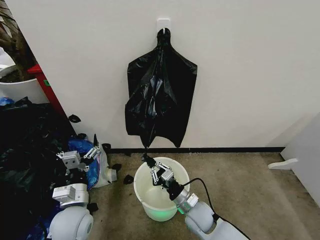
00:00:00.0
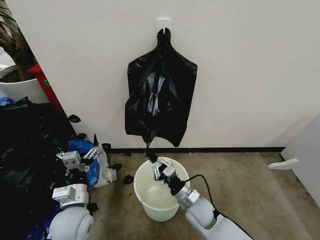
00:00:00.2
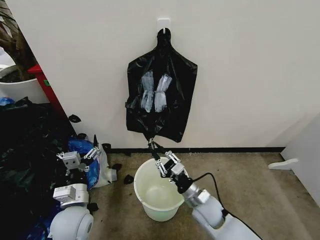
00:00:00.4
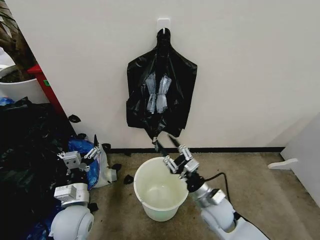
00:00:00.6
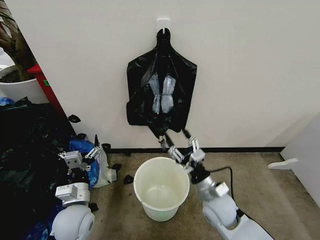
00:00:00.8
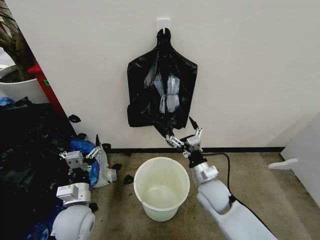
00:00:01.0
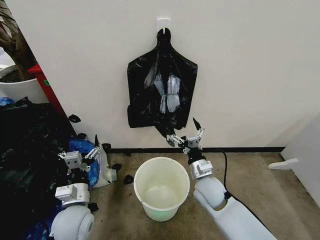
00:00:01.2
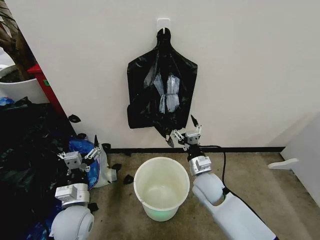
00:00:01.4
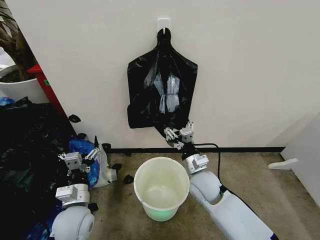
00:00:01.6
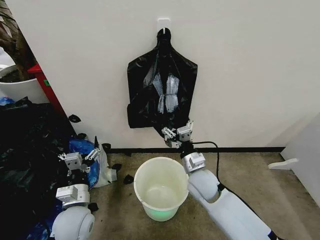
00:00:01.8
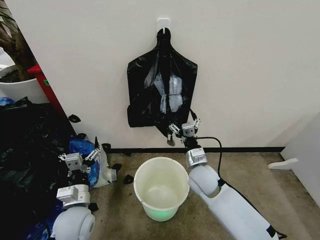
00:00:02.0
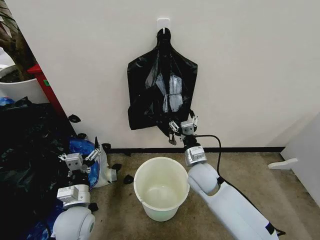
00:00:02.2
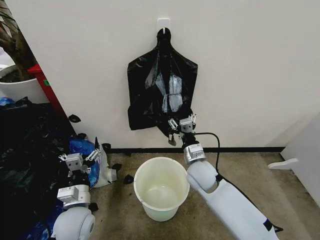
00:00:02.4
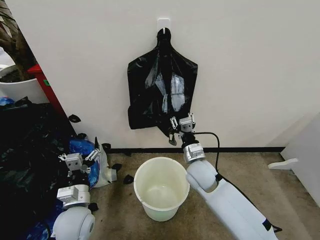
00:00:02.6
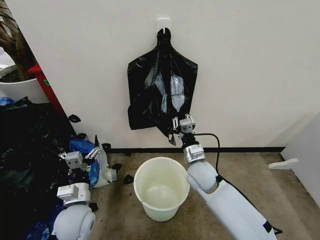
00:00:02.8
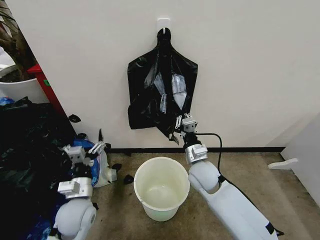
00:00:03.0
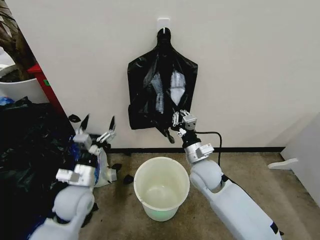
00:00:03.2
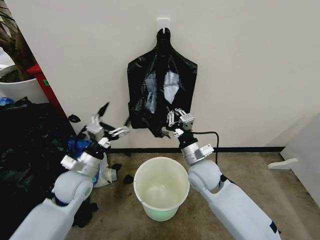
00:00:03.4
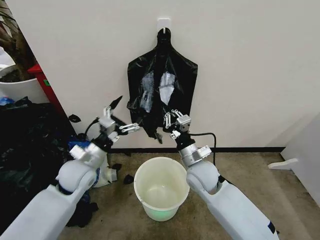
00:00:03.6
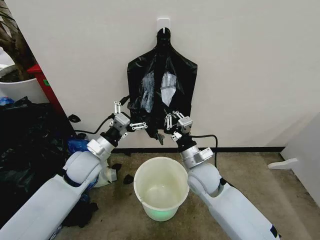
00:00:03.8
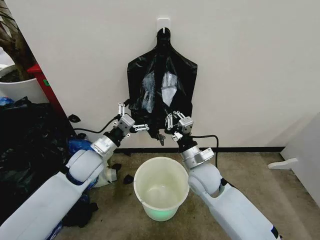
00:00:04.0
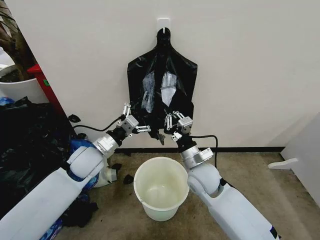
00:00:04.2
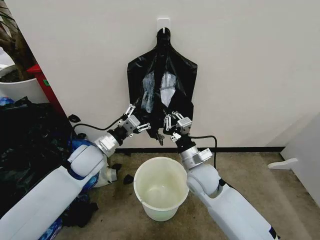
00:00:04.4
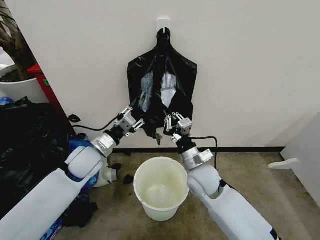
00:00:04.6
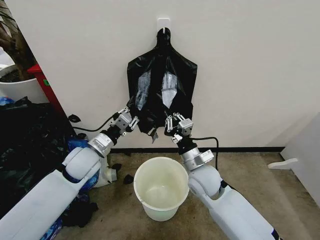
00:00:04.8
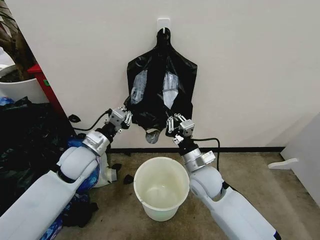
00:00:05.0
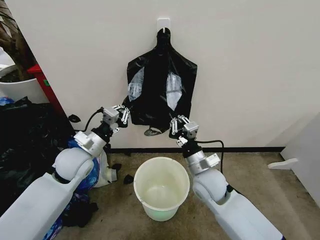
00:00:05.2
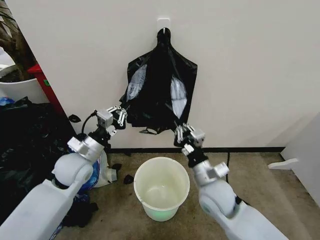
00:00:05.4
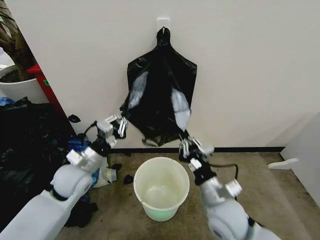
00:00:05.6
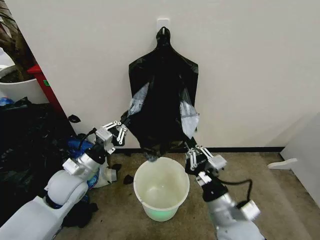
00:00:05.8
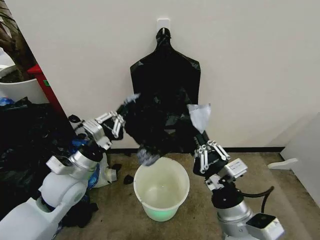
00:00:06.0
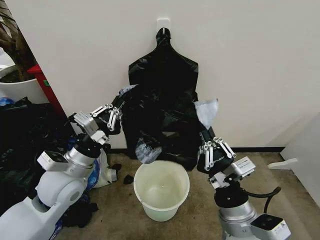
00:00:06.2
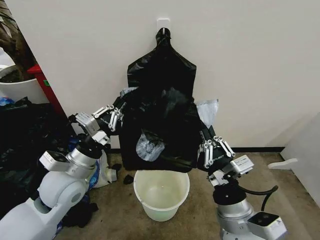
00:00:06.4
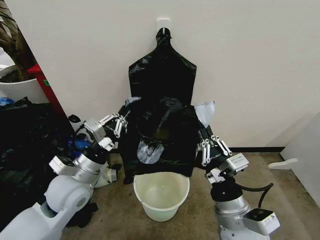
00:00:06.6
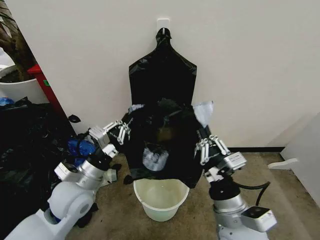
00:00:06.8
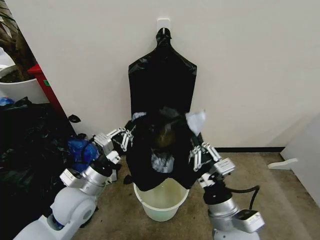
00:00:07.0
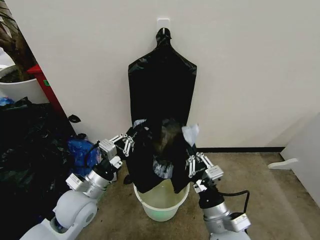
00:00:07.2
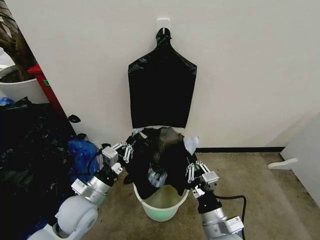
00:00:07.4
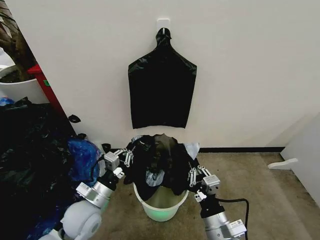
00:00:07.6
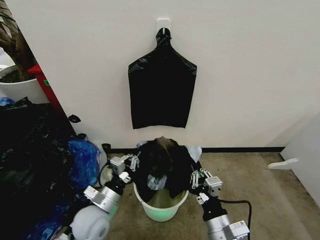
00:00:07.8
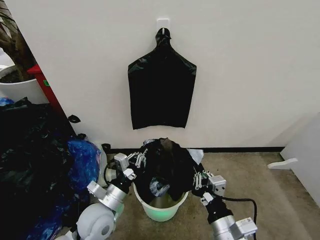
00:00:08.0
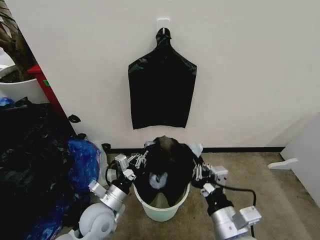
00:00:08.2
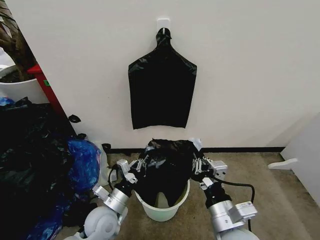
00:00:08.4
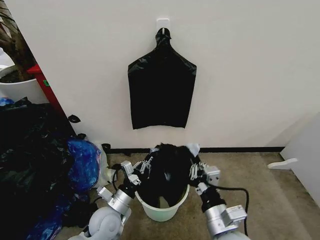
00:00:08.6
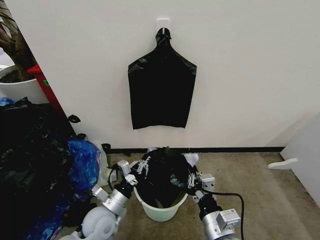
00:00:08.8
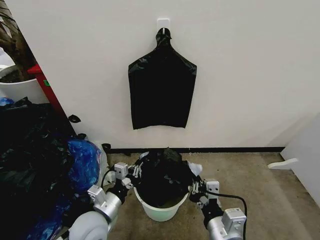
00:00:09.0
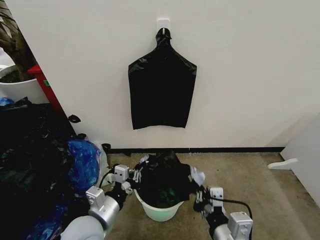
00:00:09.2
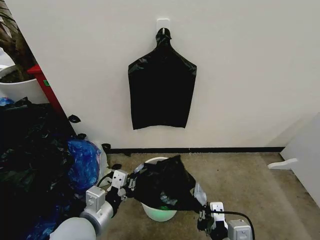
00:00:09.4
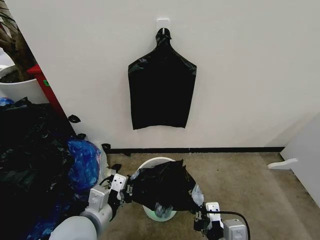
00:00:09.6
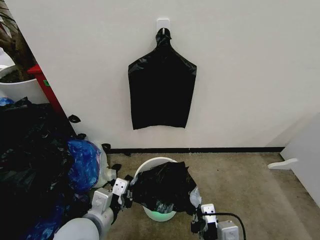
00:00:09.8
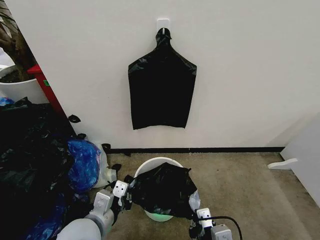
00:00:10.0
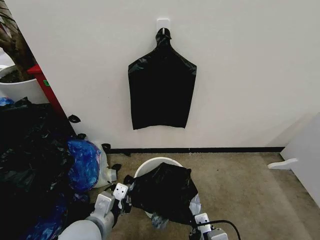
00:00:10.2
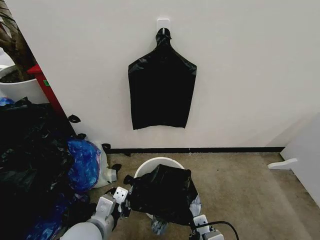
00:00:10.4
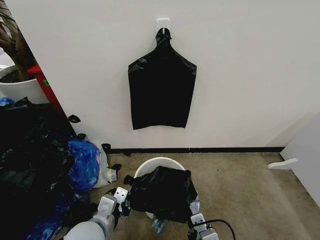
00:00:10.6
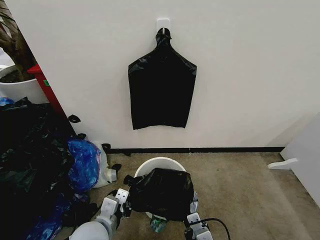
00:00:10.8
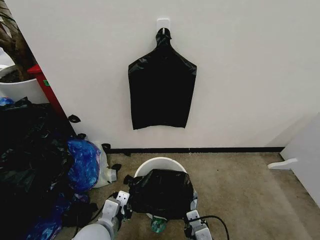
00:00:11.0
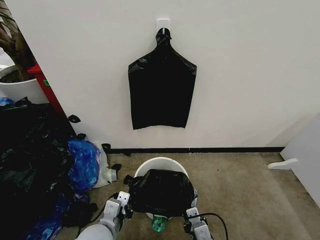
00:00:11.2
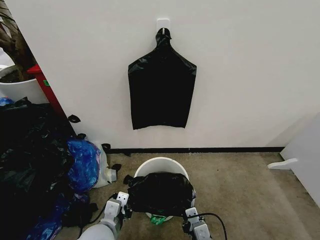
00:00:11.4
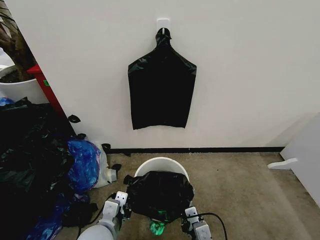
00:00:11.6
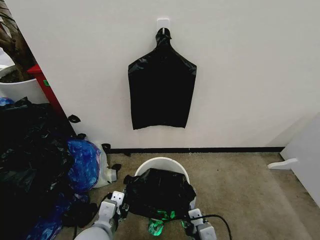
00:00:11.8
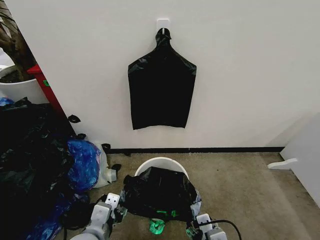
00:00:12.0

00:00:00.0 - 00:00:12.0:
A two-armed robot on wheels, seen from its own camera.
Task of the whole recording: Place the garbage bag over the trash bin.
00:00:00.0 - 00:00:01.6: The right gripper travels upward and forward by some 10 cm, and opens its fingers.
00:00:01.6 - 00:00:03.0: The right gripper closes its fingers.
00:00:03.0 - 00:00:04.4: The left gripper shifts approximately 15 cm forward and upward.
00:00:04.4 - 00:00:06.0: The left gripper moves backward, about 10 cm, and closes its fingers. Meanwhile the right gripper shifts about 15 cm backward.
00:00:06.0 - 00:00:07.6: The two grippers go about 10 cm downward.
00:00:07.6 - 00:00:09.0: The right gripper shifts by about 5 cm.
00:00:09.0 - 00:00:10.4: The left gripper is displaced upward by some 5 cm.
00:00:10.4 - 00:00:12.0: The left gripper opens. The right gripper opens.

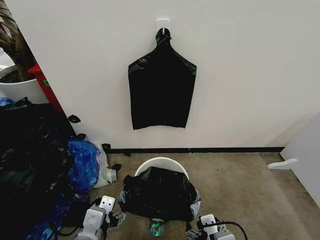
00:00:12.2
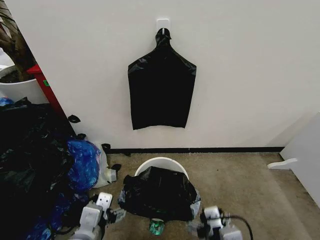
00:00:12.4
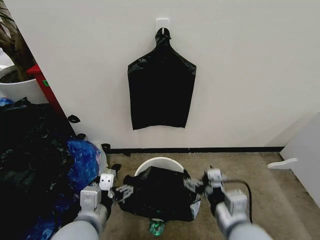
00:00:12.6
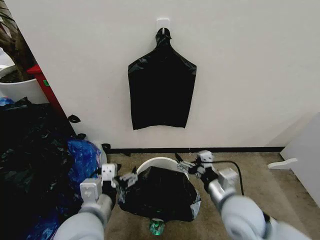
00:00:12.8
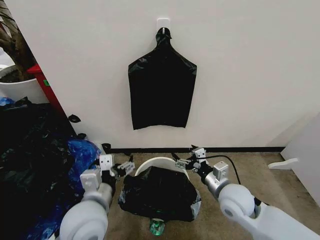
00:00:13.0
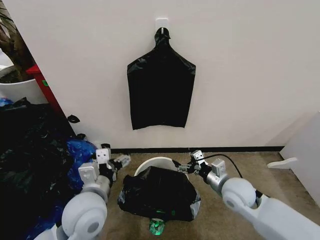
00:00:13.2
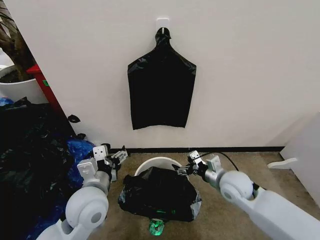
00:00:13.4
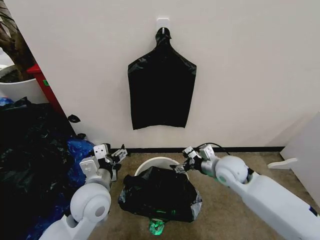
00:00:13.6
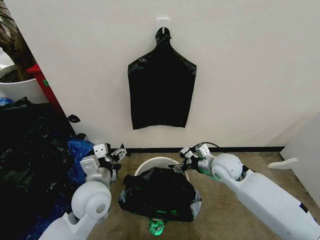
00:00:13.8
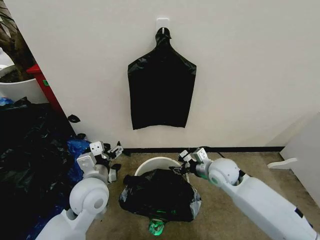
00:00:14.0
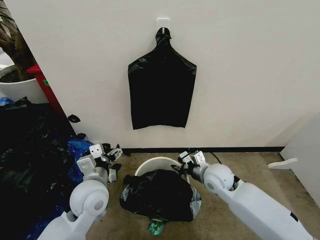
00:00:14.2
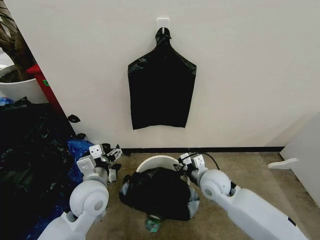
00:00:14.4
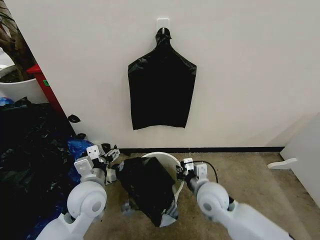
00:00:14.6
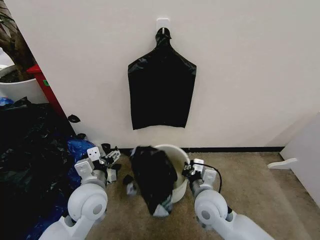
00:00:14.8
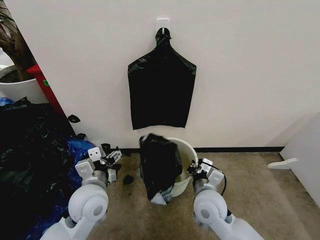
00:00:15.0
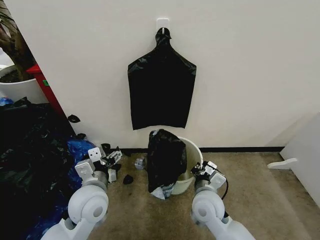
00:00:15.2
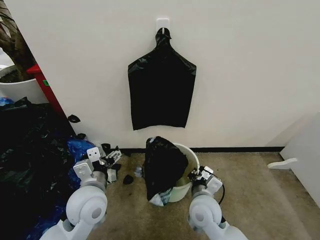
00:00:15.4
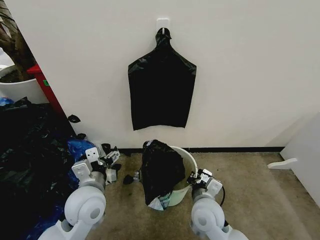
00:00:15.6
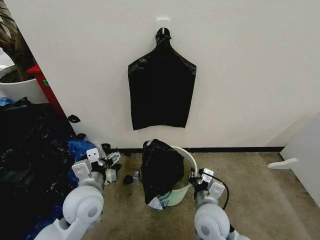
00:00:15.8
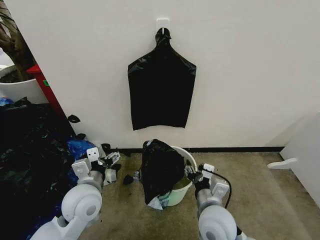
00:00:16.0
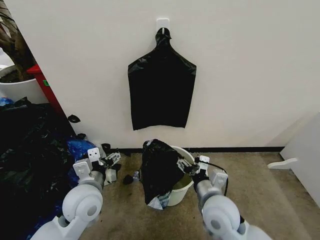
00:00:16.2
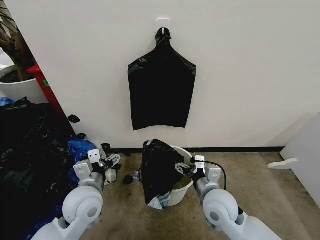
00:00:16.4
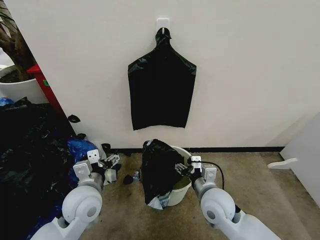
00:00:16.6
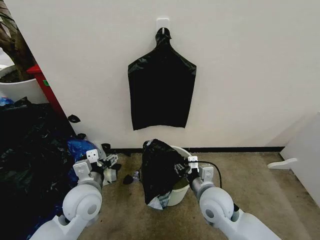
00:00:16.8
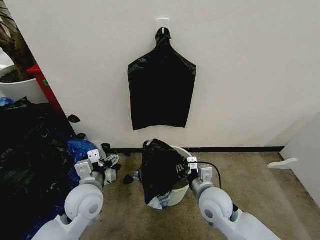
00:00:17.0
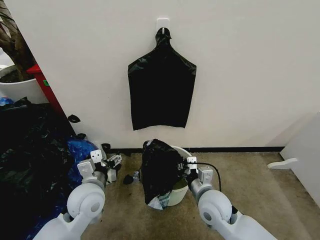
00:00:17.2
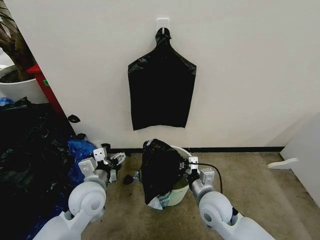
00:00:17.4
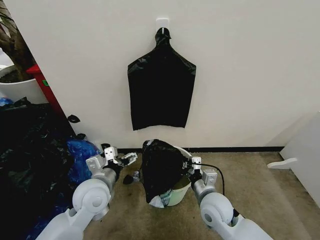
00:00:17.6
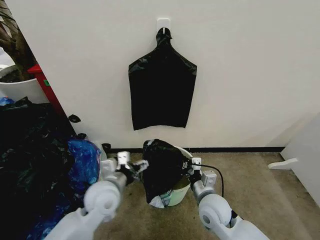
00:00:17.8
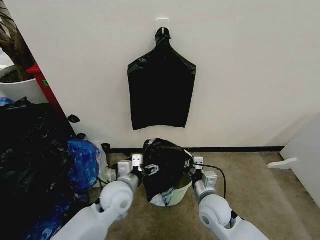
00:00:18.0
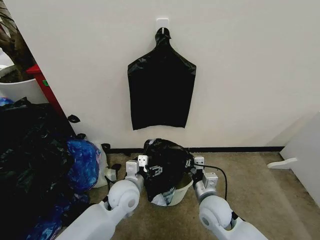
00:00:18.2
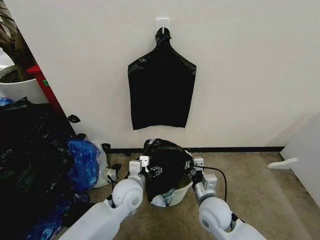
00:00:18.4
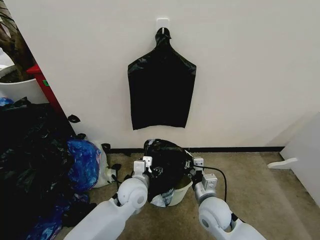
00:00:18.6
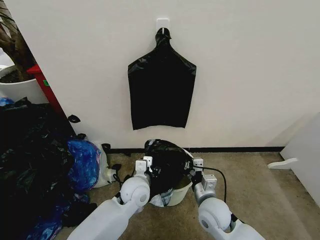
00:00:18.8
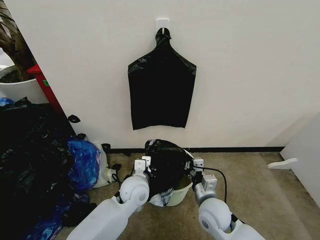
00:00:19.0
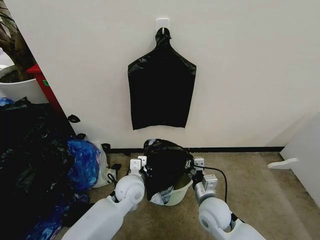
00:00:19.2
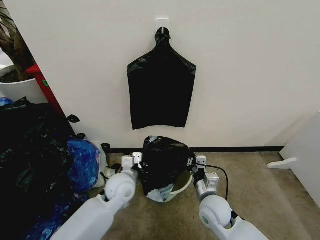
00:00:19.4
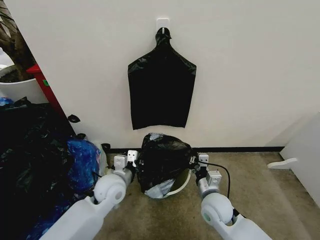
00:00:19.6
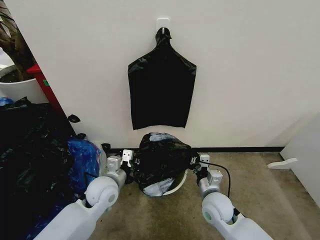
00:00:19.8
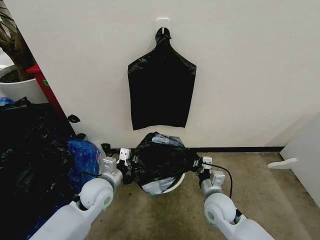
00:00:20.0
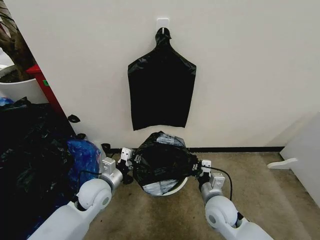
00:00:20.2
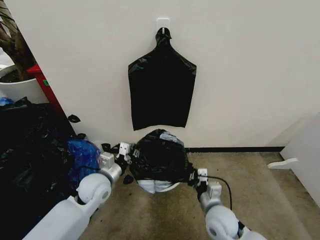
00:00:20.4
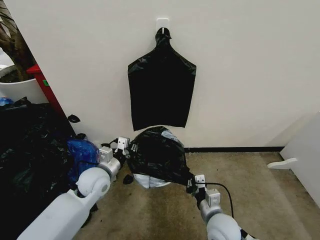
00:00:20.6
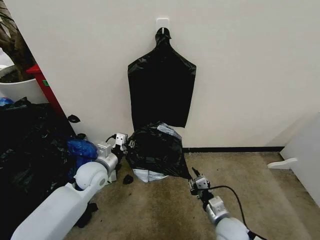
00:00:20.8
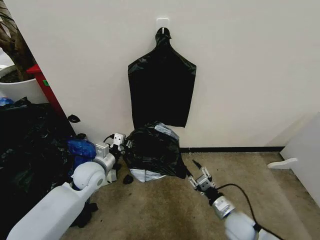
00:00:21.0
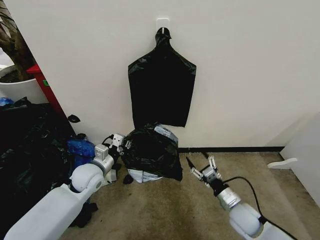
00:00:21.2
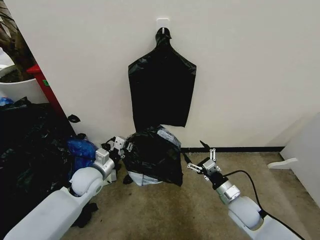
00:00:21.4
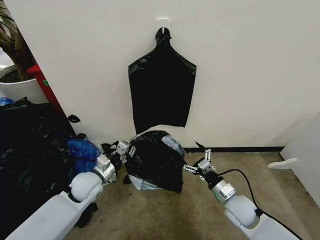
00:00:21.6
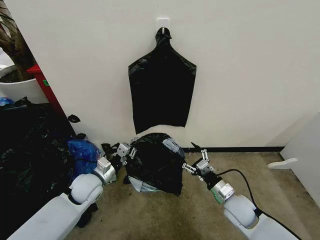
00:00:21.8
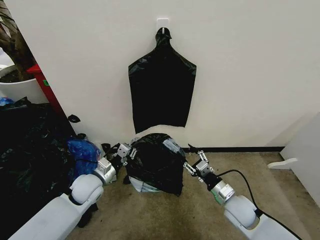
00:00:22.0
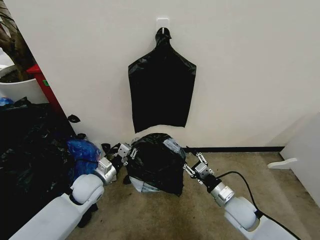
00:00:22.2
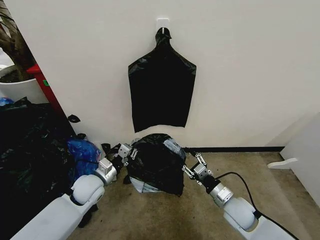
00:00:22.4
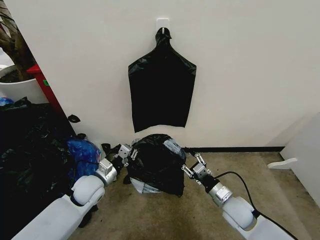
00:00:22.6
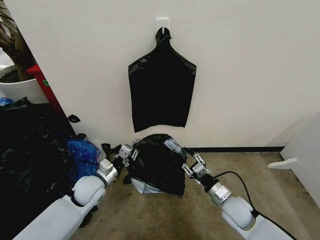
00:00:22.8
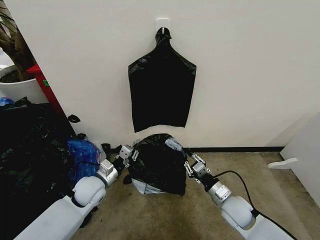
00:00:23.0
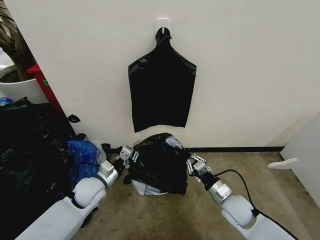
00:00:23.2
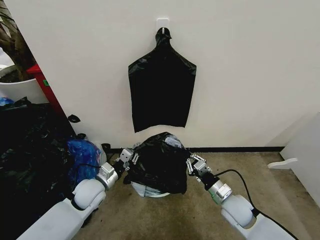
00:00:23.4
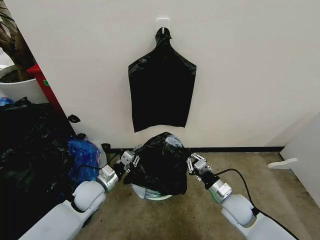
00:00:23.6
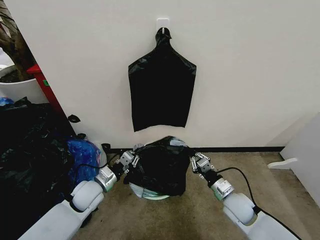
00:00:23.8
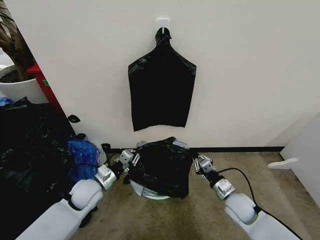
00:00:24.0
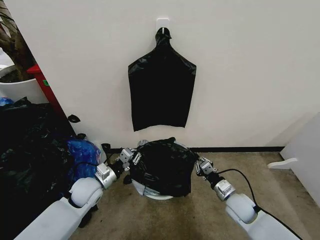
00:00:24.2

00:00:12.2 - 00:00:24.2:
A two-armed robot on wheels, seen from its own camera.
Task of the whole recording: Place the garbage bag over the trash bin.
00:00:12.2 - 00:00:13.8: The left gripper shifts roughly 15 cm forward; the right gripper travels forward by some 30 cm.
00:00:13.8 - 00:00:15.2: The right gripper moves backward and to the left, approximately 15 cm, and closes up.
00:00:15.2 - 00:00:16.6: The right gripper opens its fingers.
00:00:16.6 - 00:00:18.2: The right gripper closes up. Meanwhile the left gripper travels to the right and downward by roughly 10 cm.
00:00:18.2 - 00:00:19.8: The left gripper heads to the left, covering about 10 cm, and closes.
00:00:19.8 - 00:00:21.2: The left gripper moves to the left, roughly 5 cm, while the right gripper goes approximately 10 cm to the right, and opens up.
00:00:21.2 - 00:00:22.6: The grippers make only small movements.
00:00:22.6 - 00:00:24.2: The right gripper closes up.
